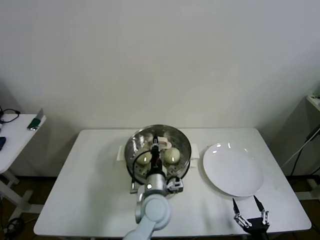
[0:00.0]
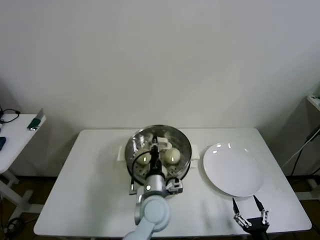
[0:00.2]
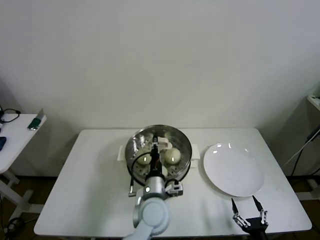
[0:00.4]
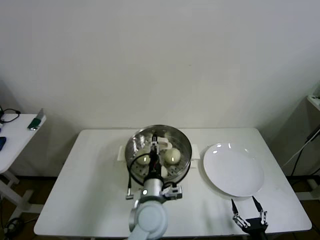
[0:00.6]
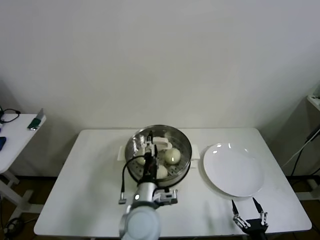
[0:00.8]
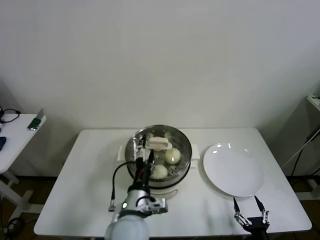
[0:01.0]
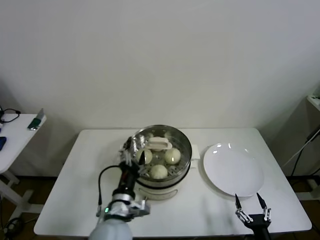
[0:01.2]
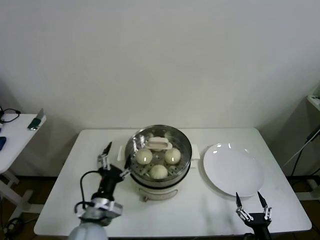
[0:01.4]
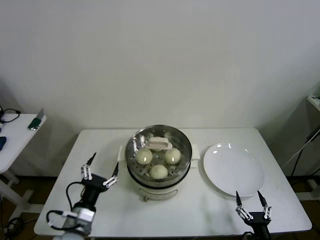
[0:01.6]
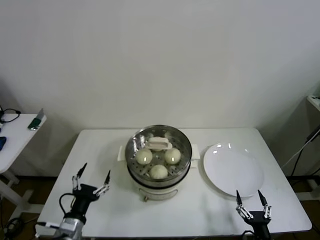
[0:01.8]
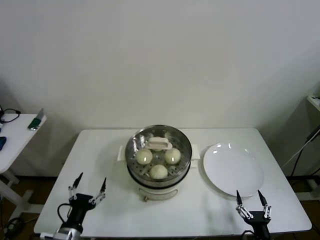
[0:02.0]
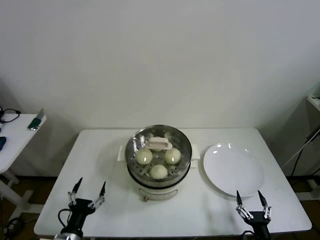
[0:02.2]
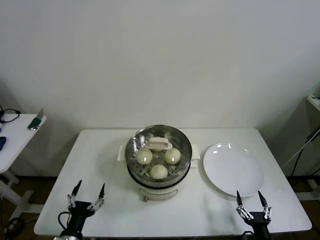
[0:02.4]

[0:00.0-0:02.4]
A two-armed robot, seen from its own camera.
0:00.0 to 0:01.2: The left gripper is displaced to the left and backward by some 10 cm, and opens its fingers.
0:01.2 to 0:02.4: The left gripper travels to the left, downward and backward by roughly 25 cm.
